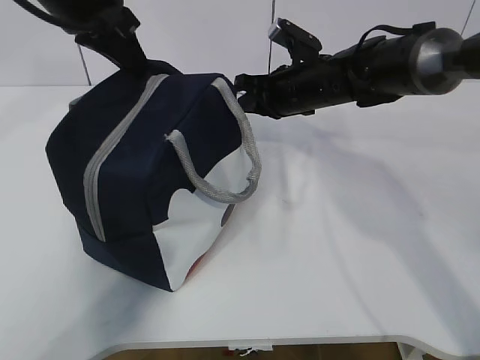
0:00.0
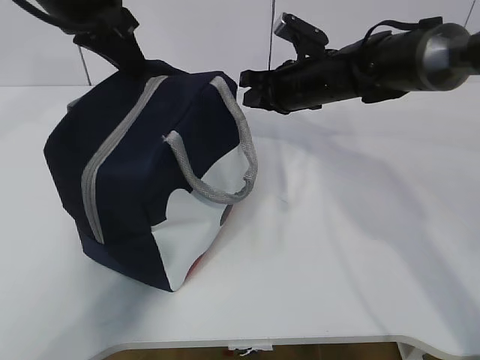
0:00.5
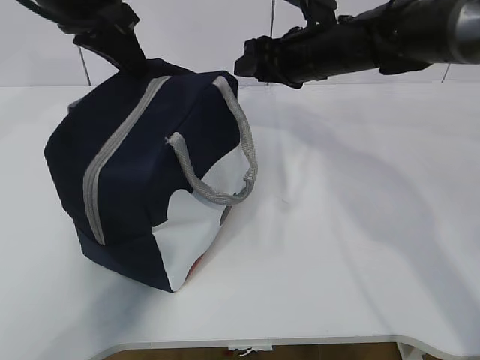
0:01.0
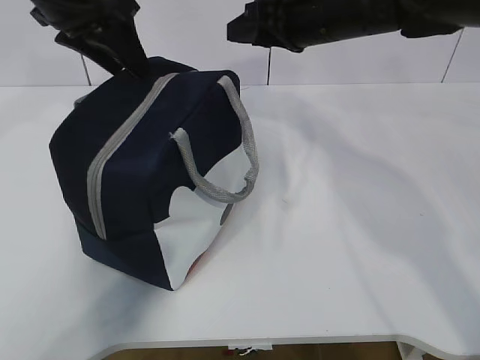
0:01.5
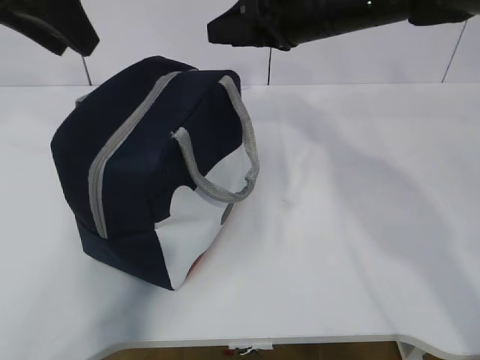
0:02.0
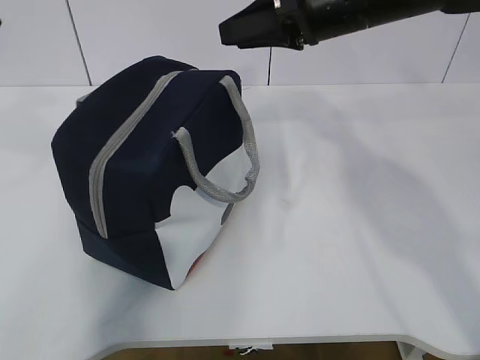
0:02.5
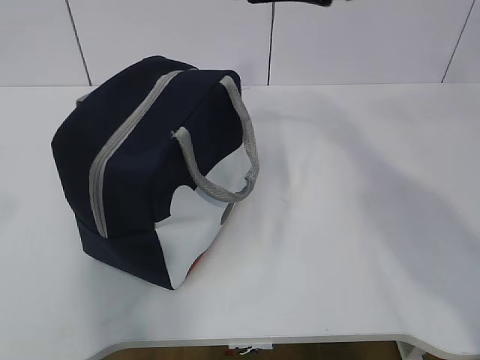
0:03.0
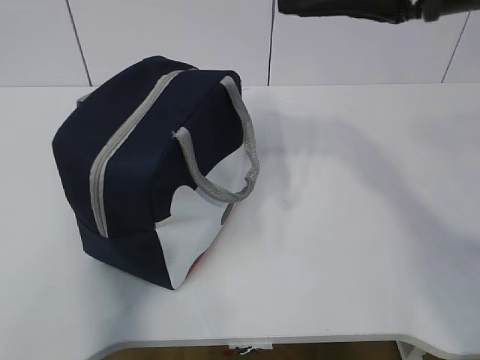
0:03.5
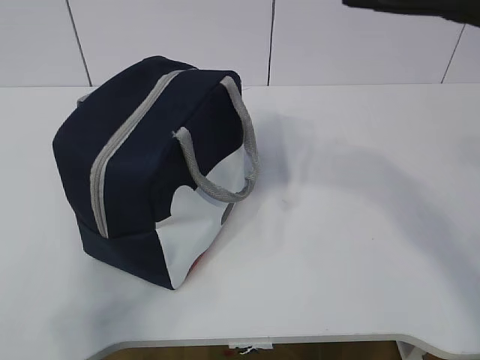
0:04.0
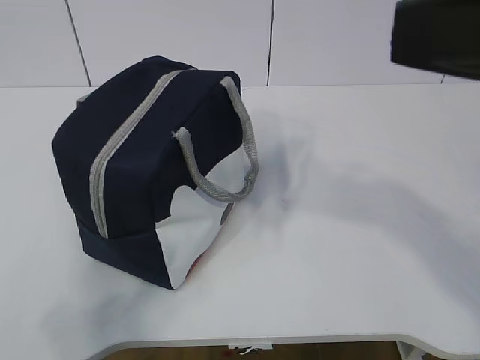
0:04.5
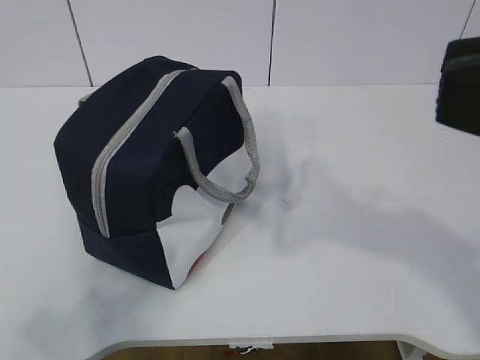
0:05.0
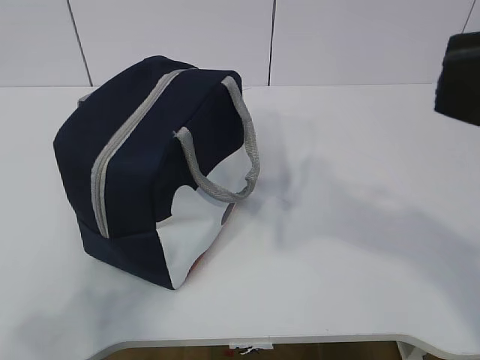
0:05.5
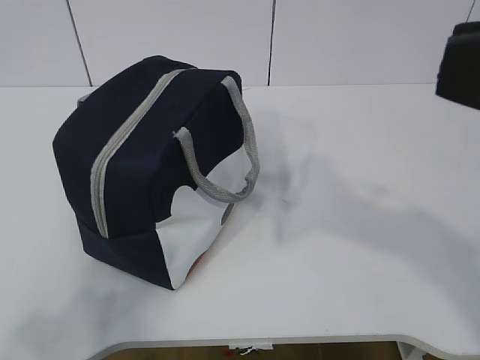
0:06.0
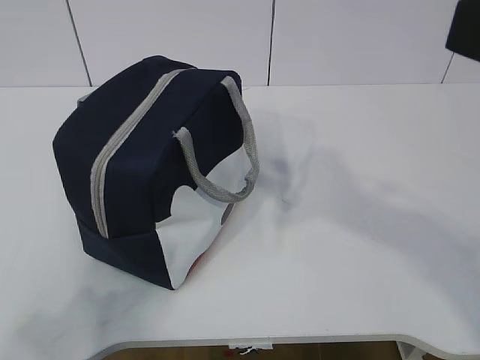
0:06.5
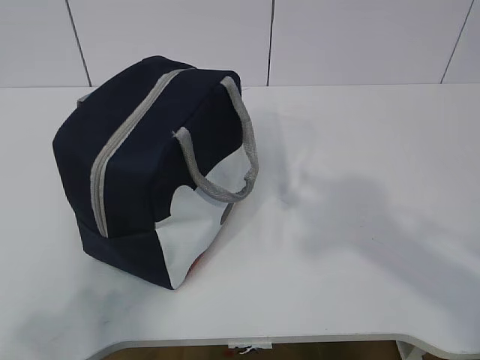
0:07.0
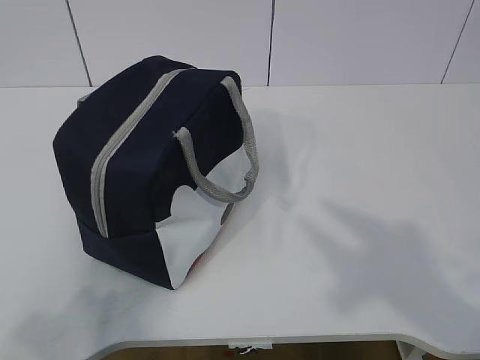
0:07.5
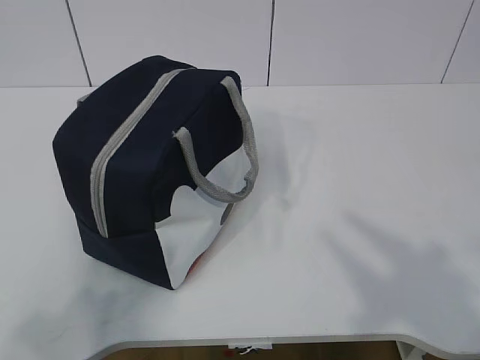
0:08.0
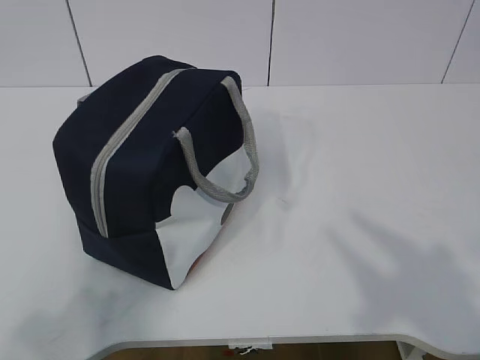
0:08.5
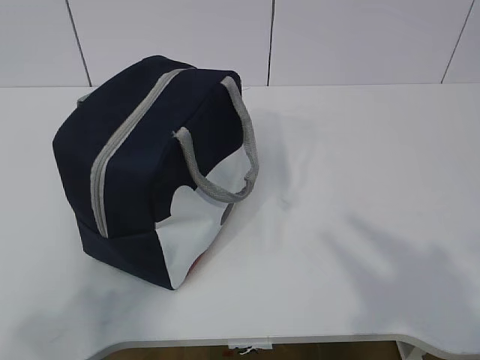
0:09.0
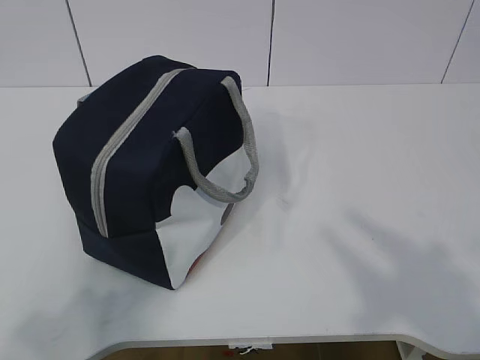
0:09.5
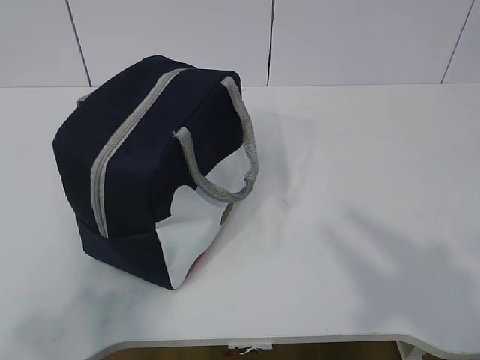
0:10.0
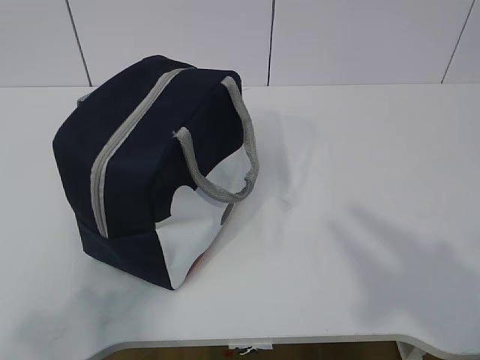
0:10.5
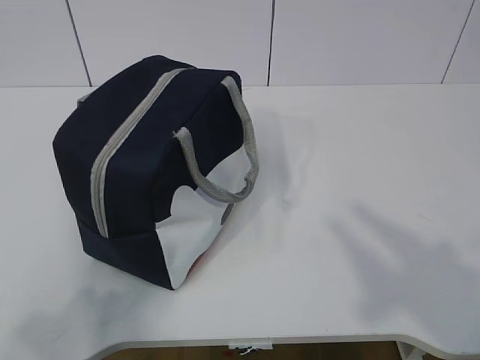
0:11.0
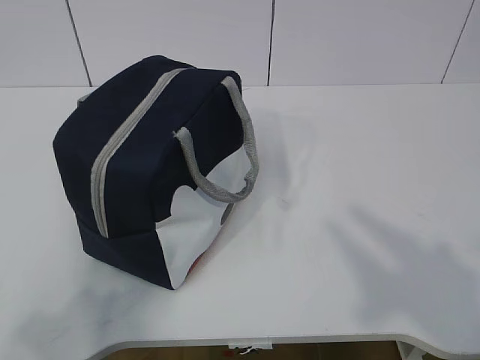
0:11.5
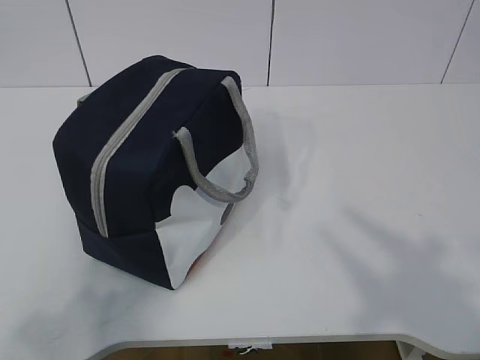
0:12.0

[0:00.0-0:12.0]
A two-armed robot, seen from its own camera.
0:00.0 to 0:02.0: The left gripper goes approximately 5 cm backward, and opens its fingers; the right gripper travels upward and backward by roughly 15 cm, and opens up.
0:02.0 to 0:04.0: The left gripper shifts about 35 cm backward, while the right gripper is displaced backward and upward by roughly 25 cm.
0:04.0 to 0:06.0: The right gripper is displaced backward by approximately 5 cm.
0:06.0 to 0:08.0: The right gripper shifts approximately 15 cm backward and to the right.

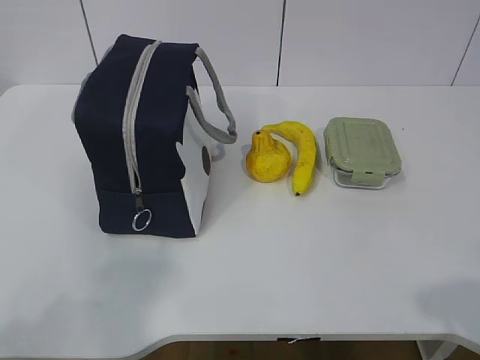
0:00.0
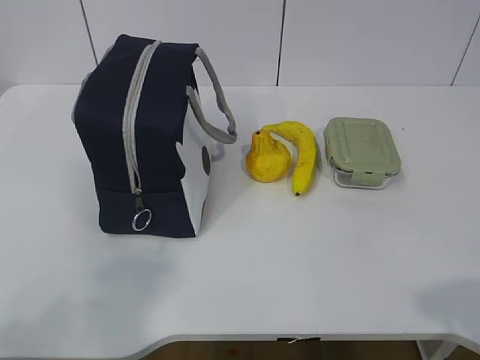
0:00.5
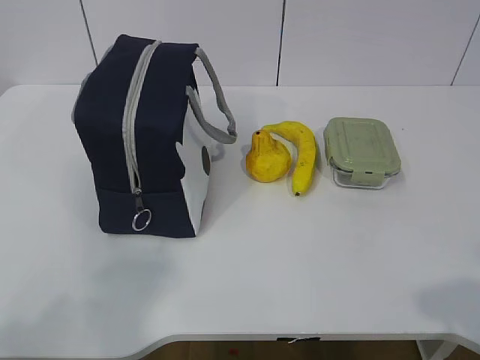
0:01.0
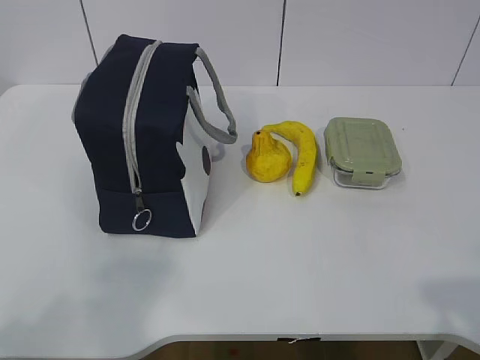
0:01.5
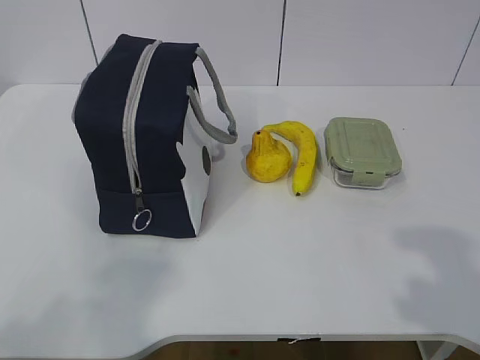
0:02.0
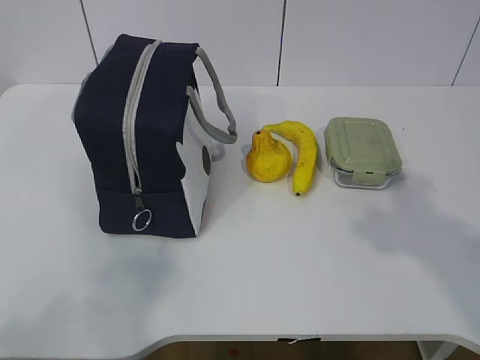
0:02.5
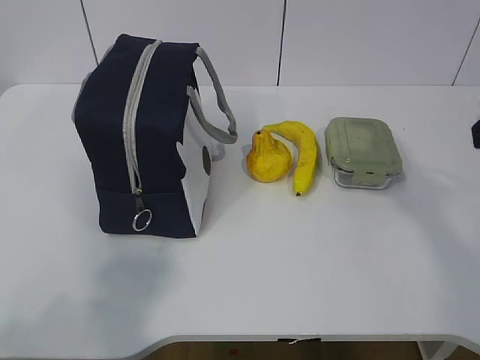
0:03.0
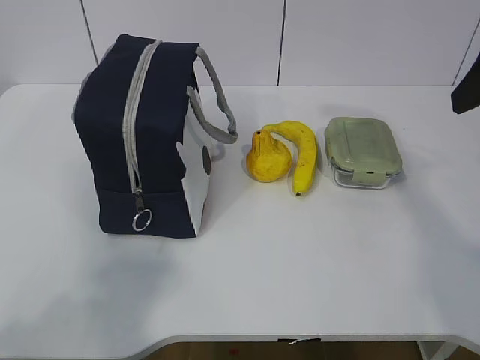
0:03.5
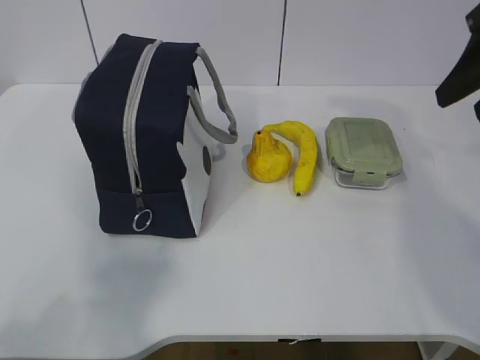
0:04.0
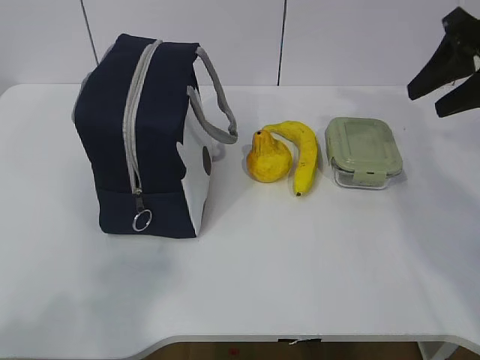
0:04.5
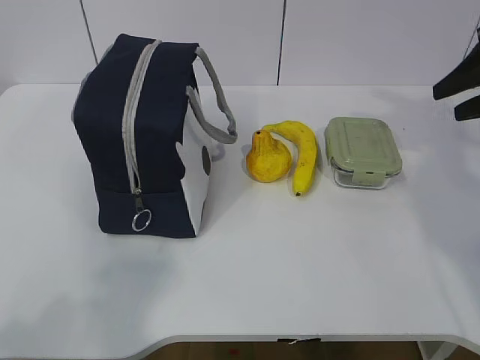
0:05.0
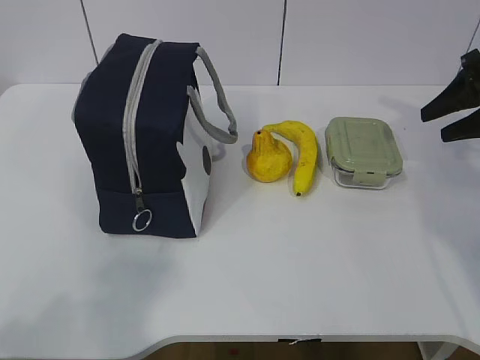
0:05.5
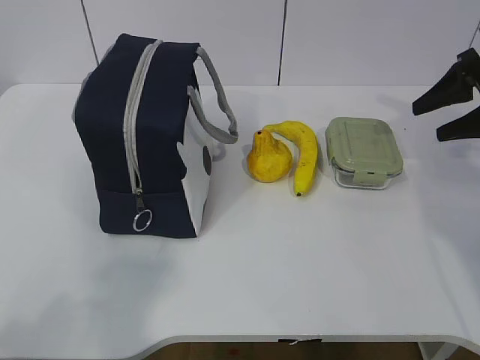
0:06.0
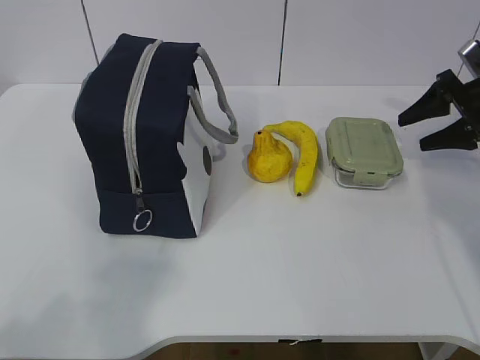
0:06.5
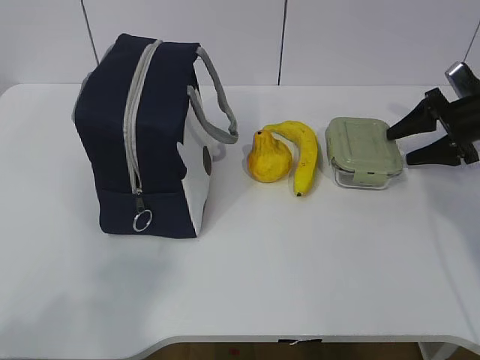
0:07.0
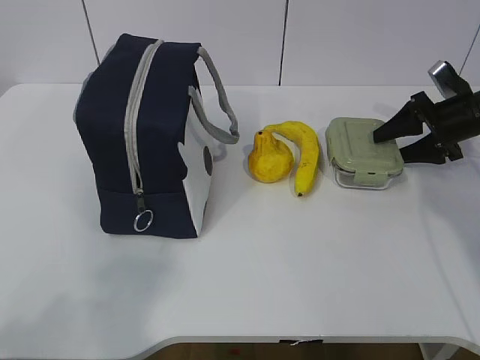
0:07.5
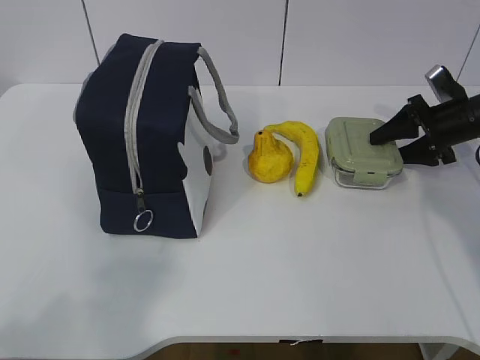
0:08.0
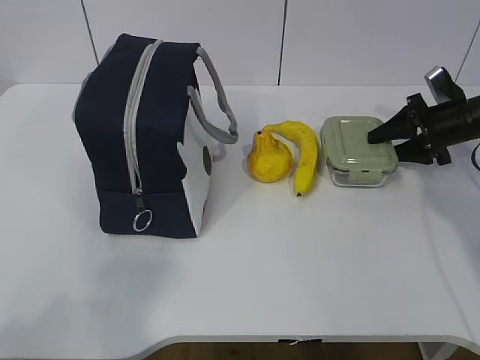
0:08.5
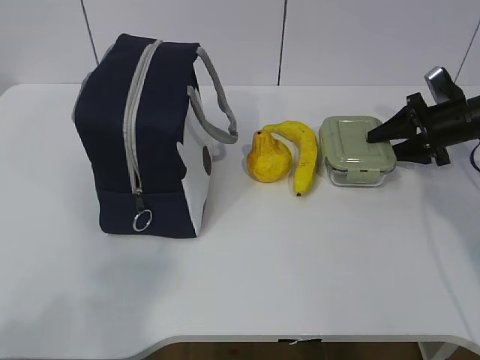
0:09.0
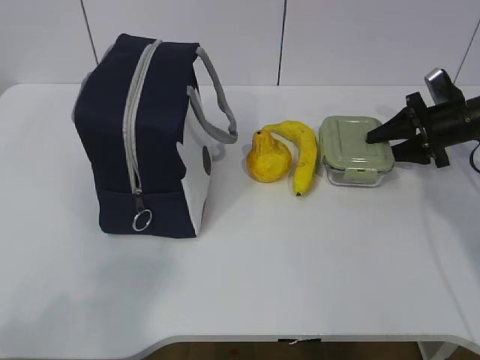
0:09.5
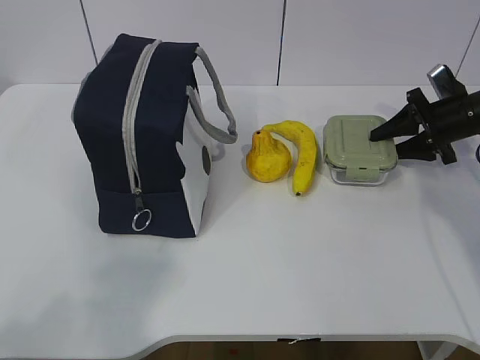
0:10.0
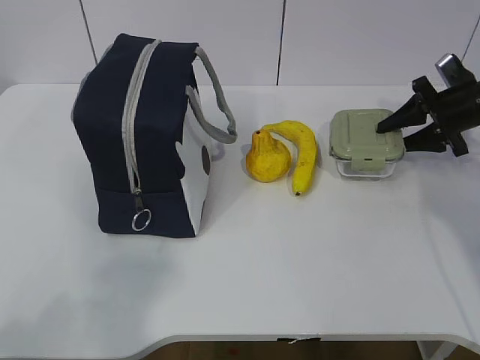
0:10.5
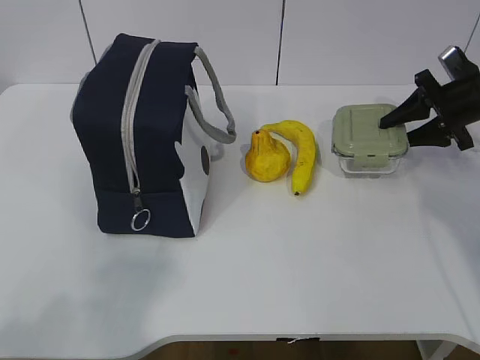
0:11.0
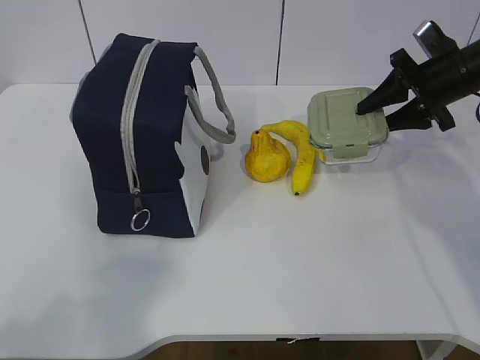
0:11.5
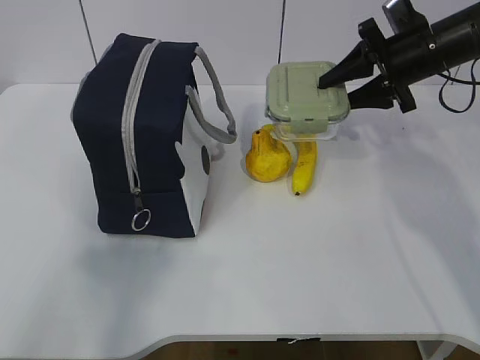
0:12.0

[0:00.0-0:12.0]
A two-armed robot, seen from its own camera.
Step, 0:00.0 to 0:07.0: Grab the lunch box with your right hand.
0:02.0 to 0:04.0: The right gripper travels forward by about 25 cm.
0:04.0 to 0:06.0: The right gripper is displaced downward, forward and to the right by some 20 cm.
0:06.0 to 0:08.0: The right gripper travels downward and forward by roughly 10 cm.
0:08.0 to 0:10.0: The grippers move only a little.
0:10.0 to 0:12.0: The left gripper changes place by some 5 cm. The right gripper goes about 15 cm upward and to the left.

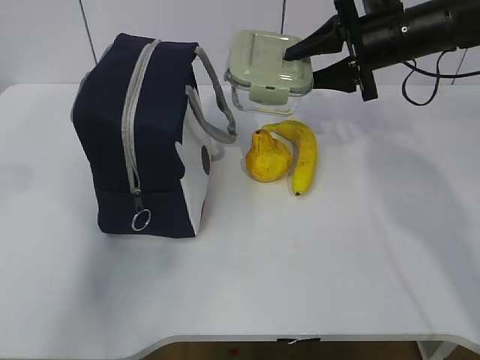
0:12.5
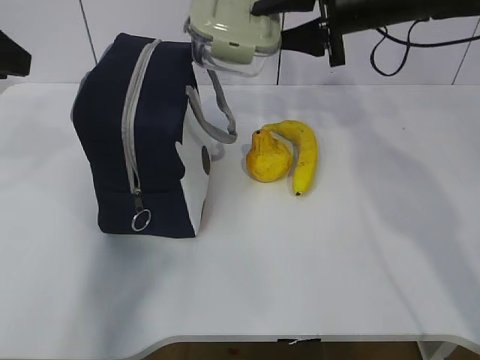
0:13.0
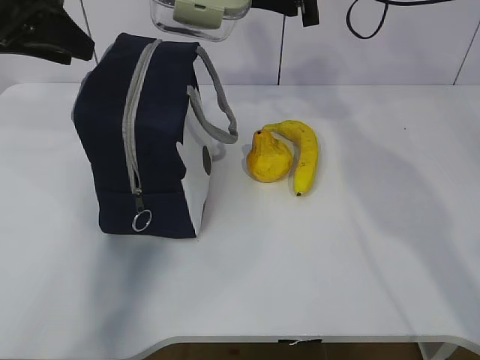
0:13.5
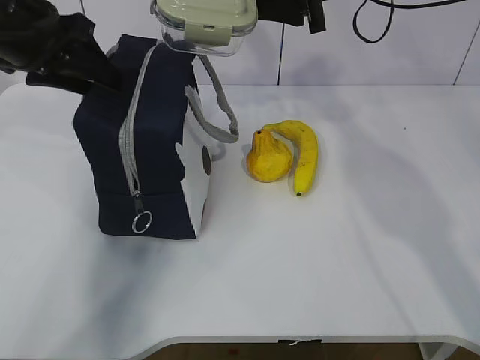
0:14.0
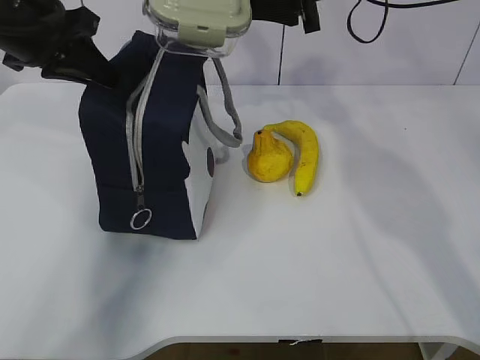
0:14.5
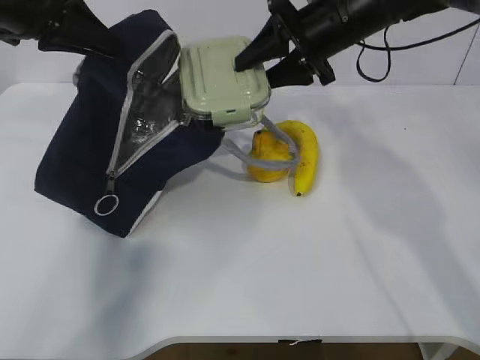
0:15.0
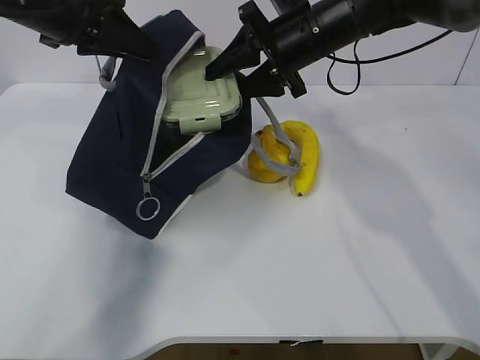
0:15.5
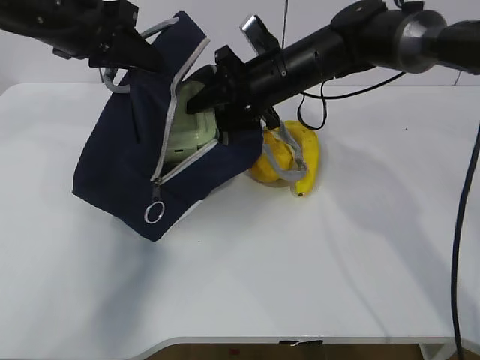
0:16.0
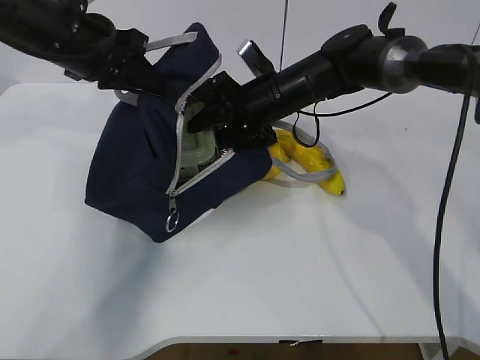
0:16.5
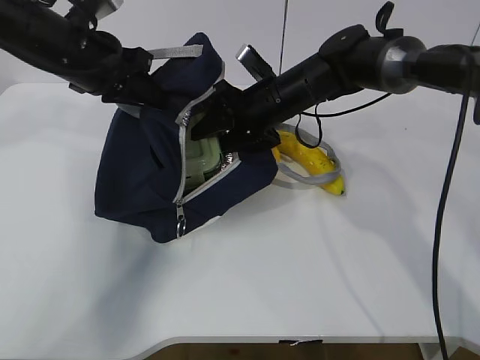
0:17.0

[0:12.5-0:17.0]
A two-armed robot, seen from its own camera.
Step, 0:12.5 to 0:14.5: Grab the pear with your right hand.
0:12.5 to 0:14.5: The left gripper heads forward, covering some 20 cm, and closes up, while the right gripper heads upward and to the left, covering about 10 cm.
0:14.5 to 0:17.0: The right gripper goes roughly 15 cm downward, while the left gripper moves about 5 cm.
